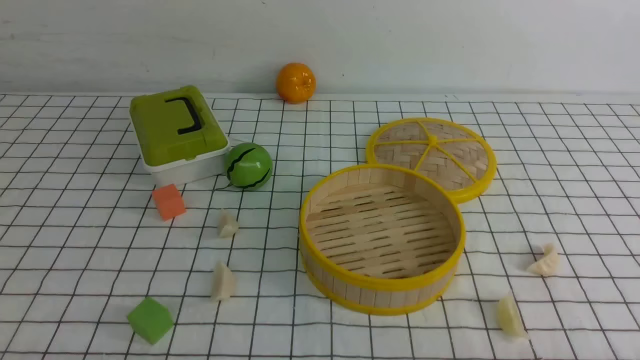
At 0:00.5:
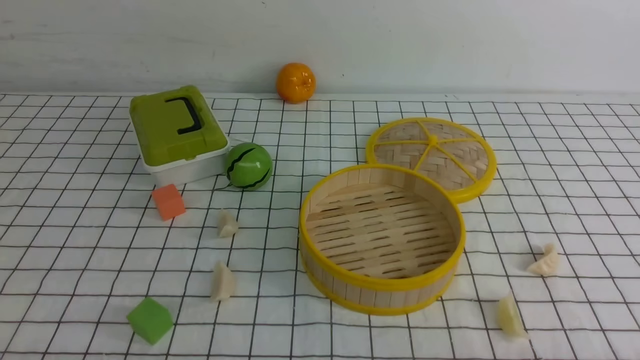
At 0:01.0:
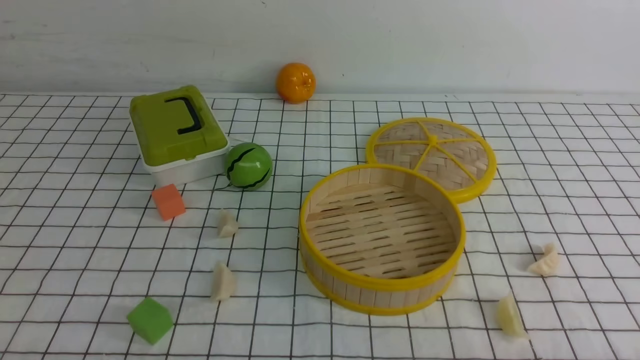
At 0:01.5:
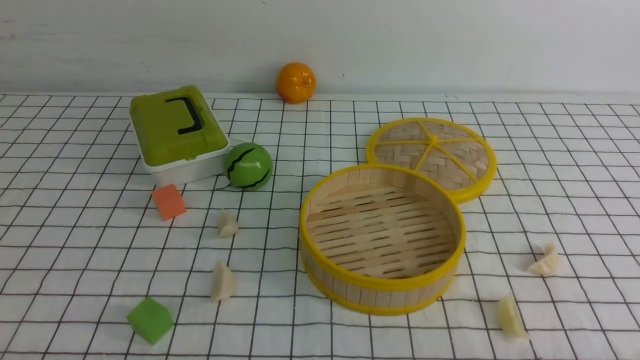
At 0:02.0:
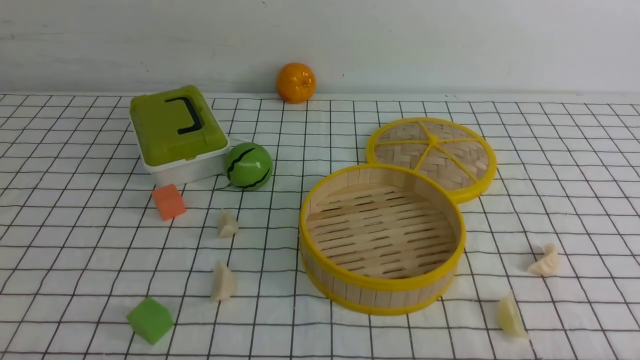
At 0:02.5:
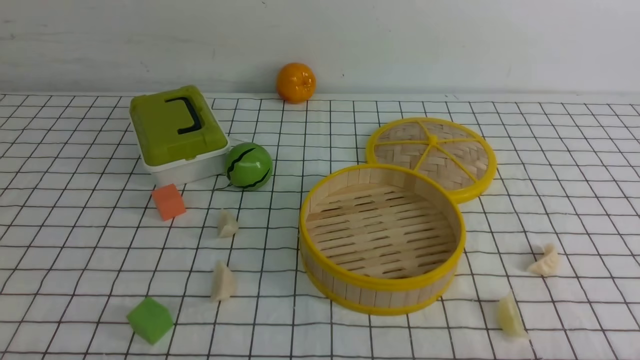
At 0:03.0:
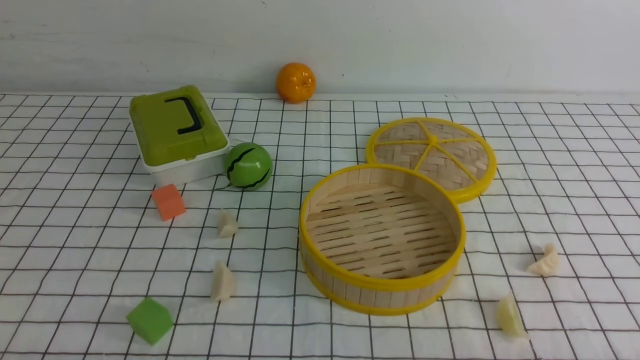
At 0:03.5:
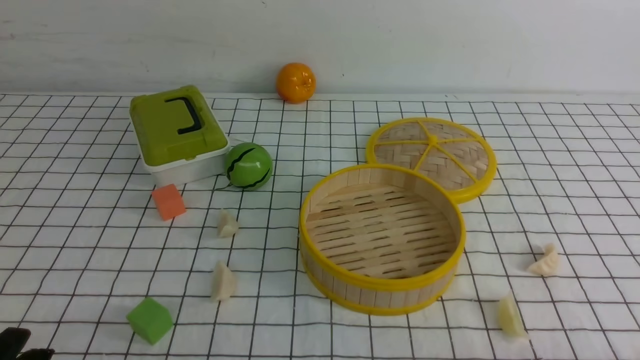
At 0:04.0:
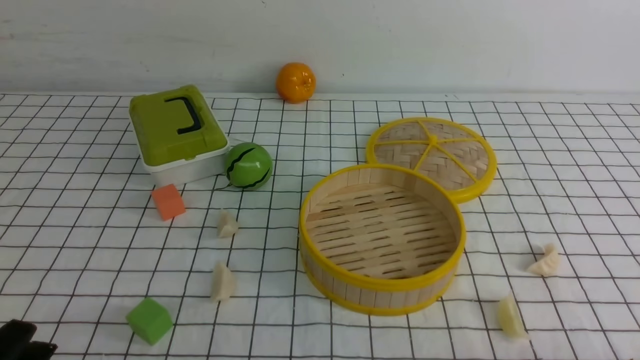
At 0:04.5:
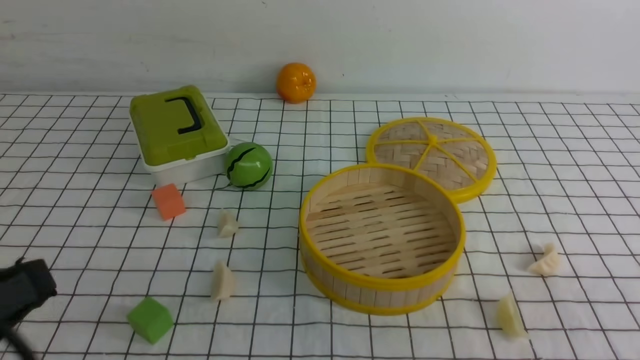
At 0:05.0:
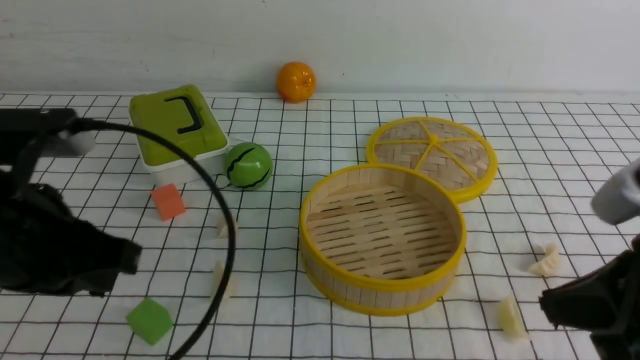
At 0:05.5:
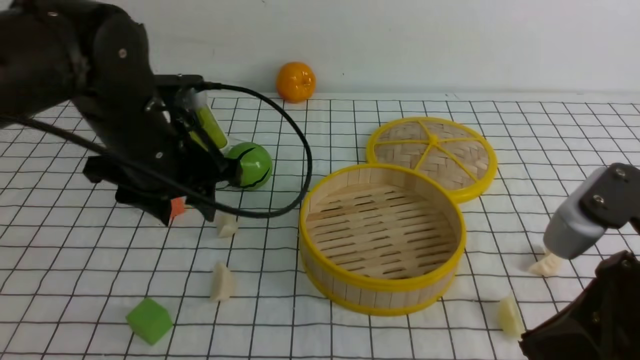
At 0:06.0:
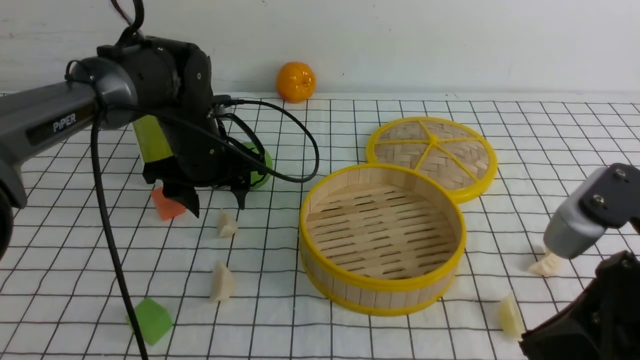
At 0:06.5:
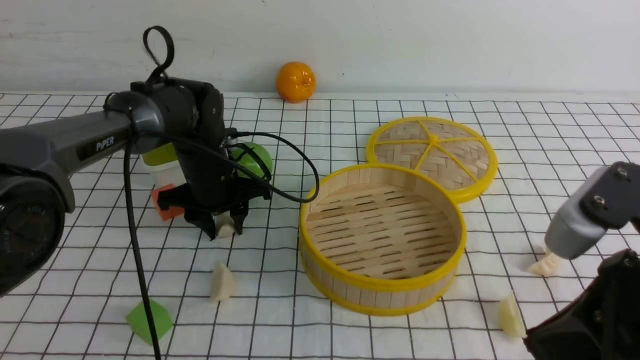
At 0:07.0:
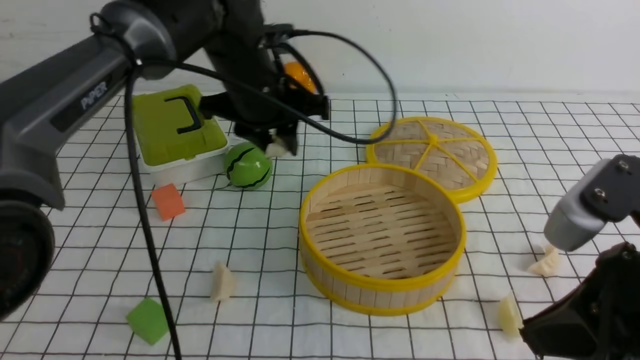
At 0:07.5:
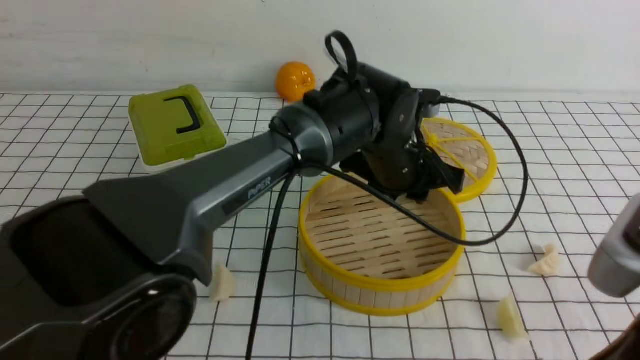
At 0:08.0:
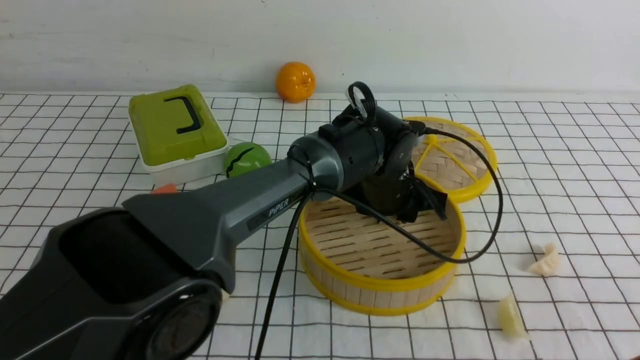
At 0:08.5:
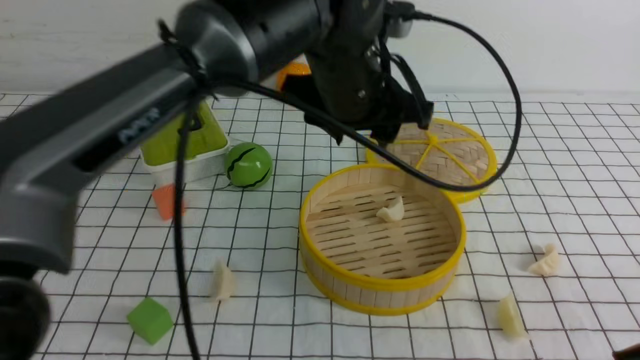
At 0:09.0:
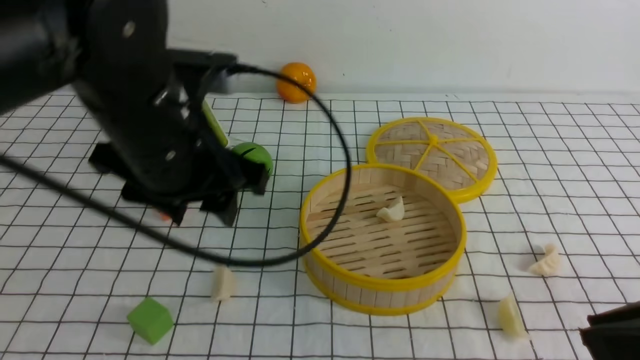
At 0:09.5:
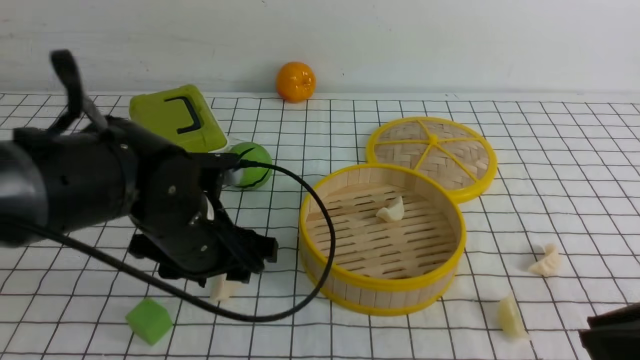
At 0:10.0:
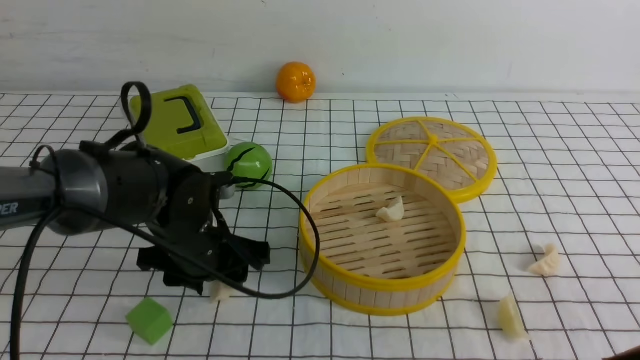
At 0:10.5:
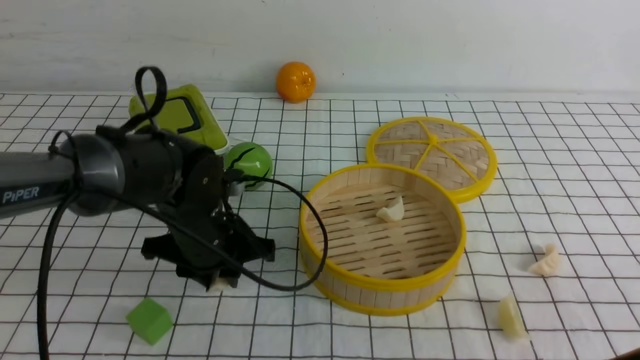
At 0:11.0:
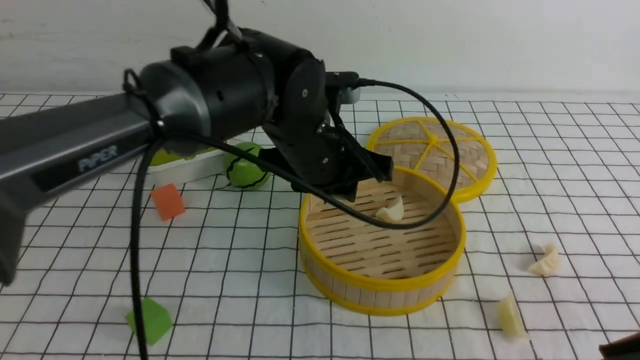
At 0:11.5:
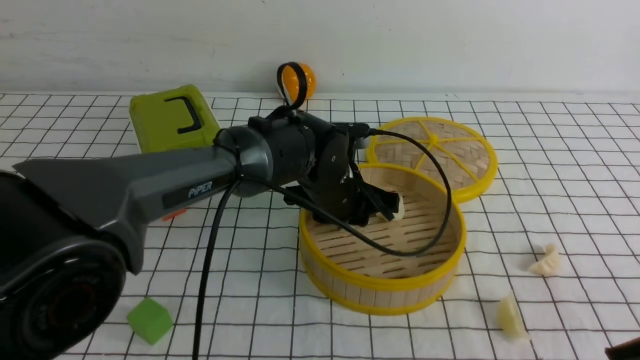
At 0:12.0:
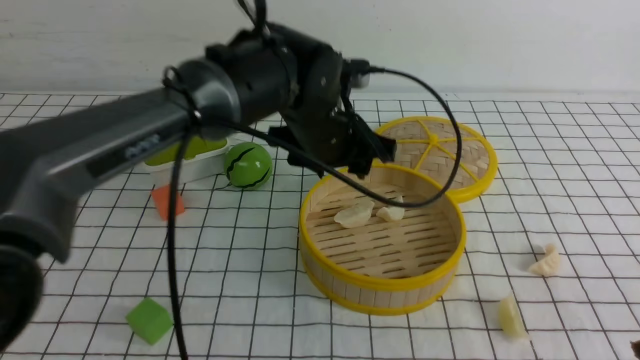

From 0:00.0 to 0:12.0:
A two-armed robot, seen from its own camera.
Task of the whole recording: put the dumplings into the steamer on the table with the white tablecloth.
Step, from 0:00.0 to 0:07.0: use the left arm to grab a dumpling.
Step, from 0:07.5 to 0:08.5: use the left arm to put the dumpling into the steamer.
Step, from 0:09.0 to 0:10.5: use the left arm to grab a dumpling.
From 0:02.0 to 0:04.0: The left gripper shifts some 5 cm upward.
From 0:04.0 to 0:06.0: The right gripper shifts approximately 20 cm upward, forward and to the left, and closes up. Meanwhile the left gripper travels forward by some 40 cm, and opens.
From 0:06.0 to 0:08.0: The left gripper moves to the right, roughly 20 cm, while the right gripper is displaced backward by roughly 5 cm.
From 0:08.0 to 0:10.0: The left gripper travels to the left by roughly 20 cm.
From 0:10.0 to 0:12.0: The left gripper travels upward and to the right by roughly 15 cm, and closes, then opens again.

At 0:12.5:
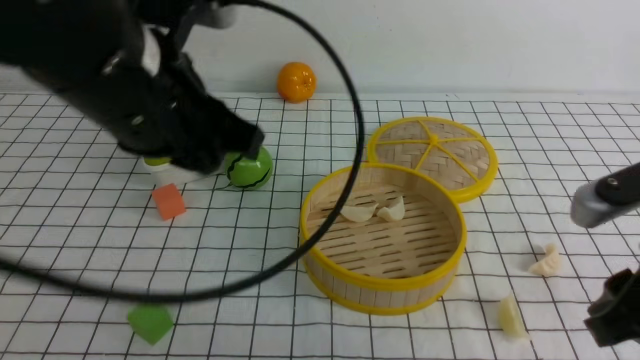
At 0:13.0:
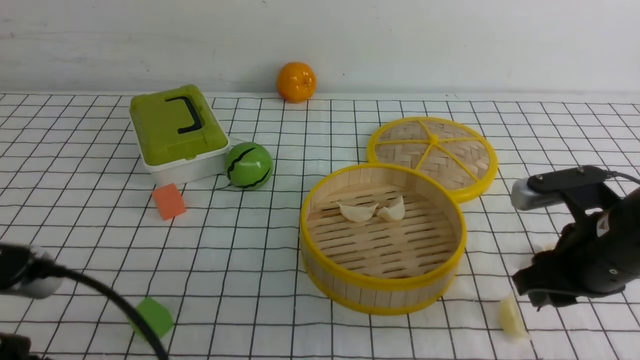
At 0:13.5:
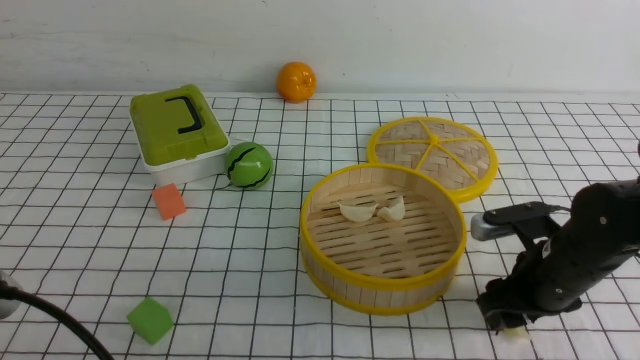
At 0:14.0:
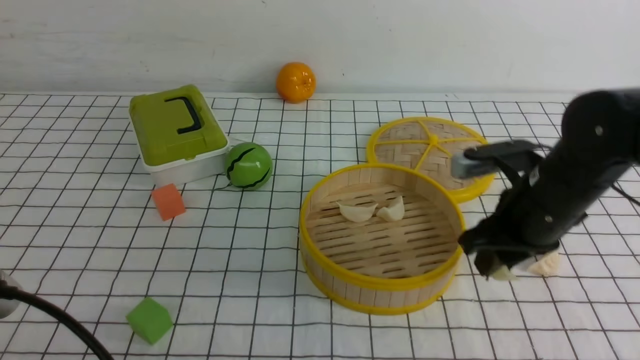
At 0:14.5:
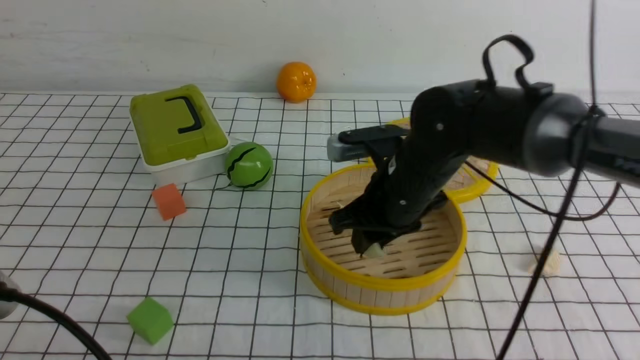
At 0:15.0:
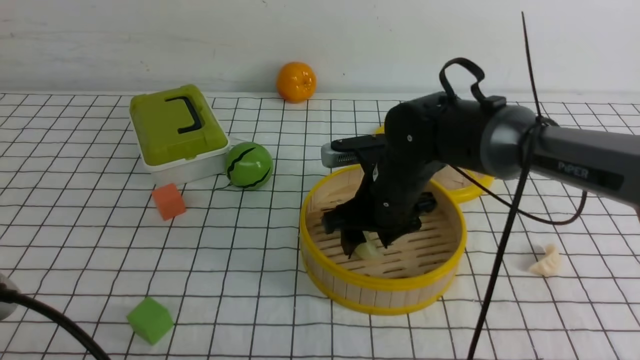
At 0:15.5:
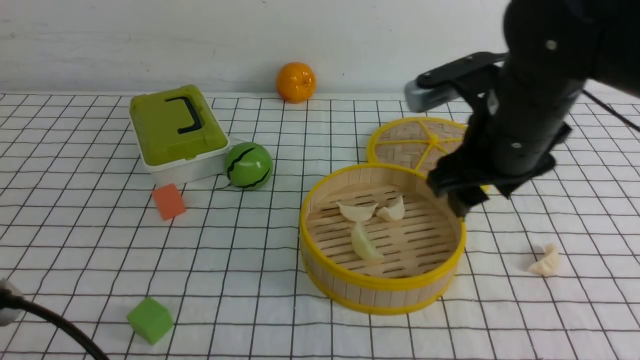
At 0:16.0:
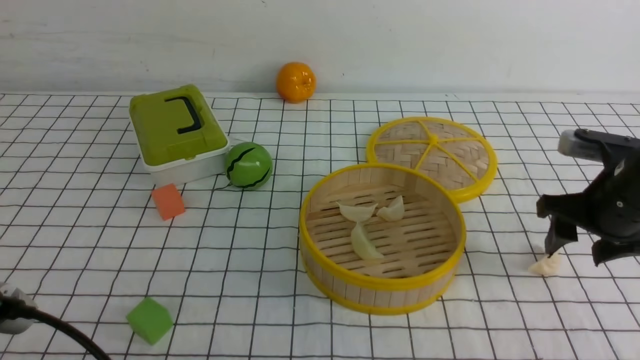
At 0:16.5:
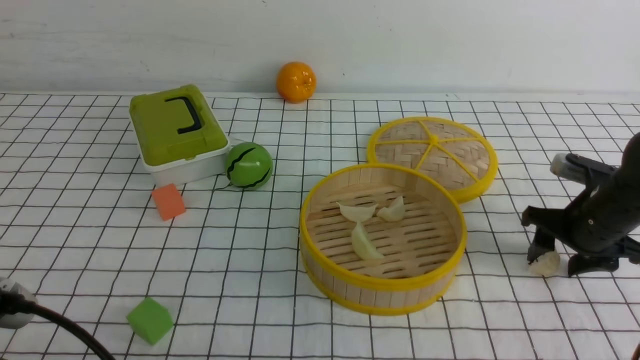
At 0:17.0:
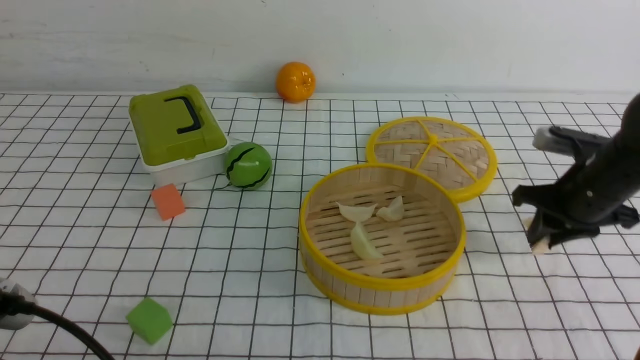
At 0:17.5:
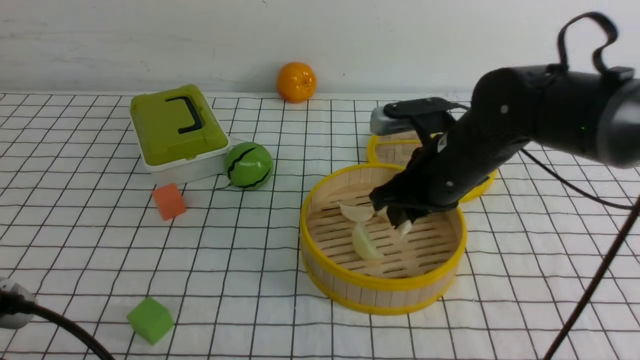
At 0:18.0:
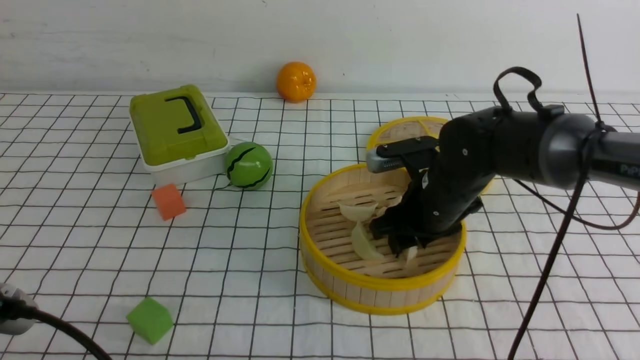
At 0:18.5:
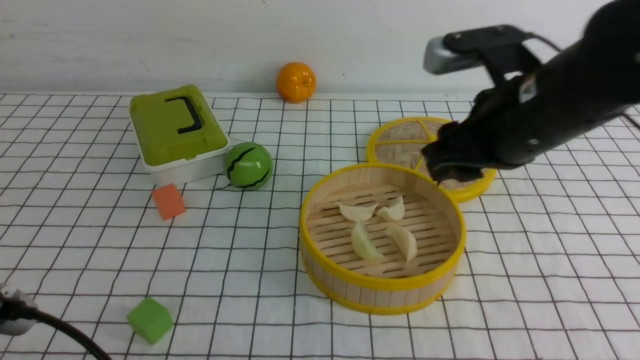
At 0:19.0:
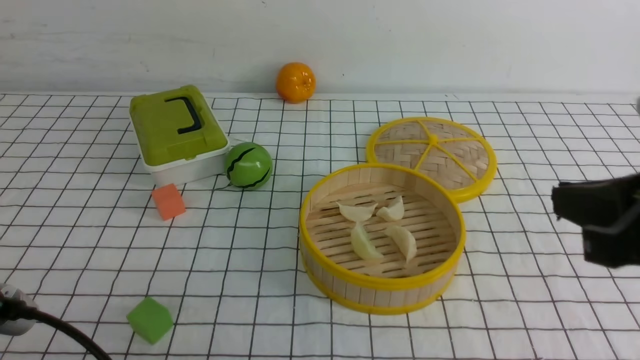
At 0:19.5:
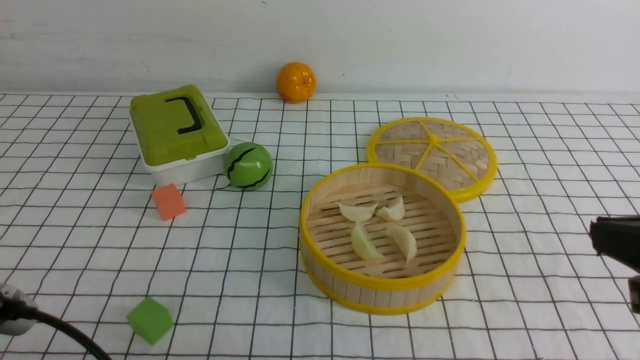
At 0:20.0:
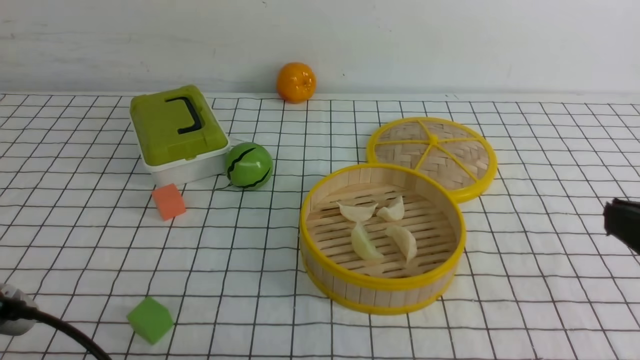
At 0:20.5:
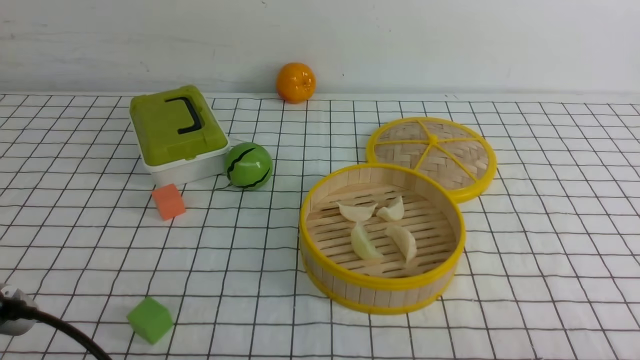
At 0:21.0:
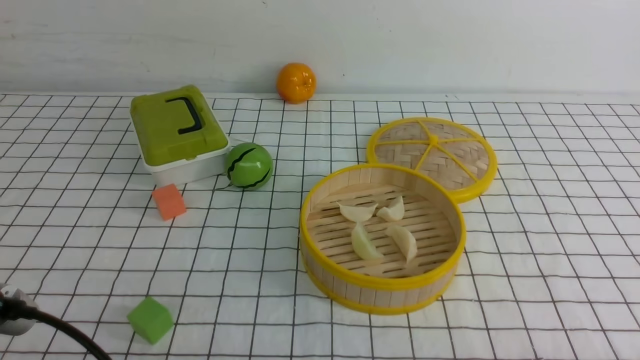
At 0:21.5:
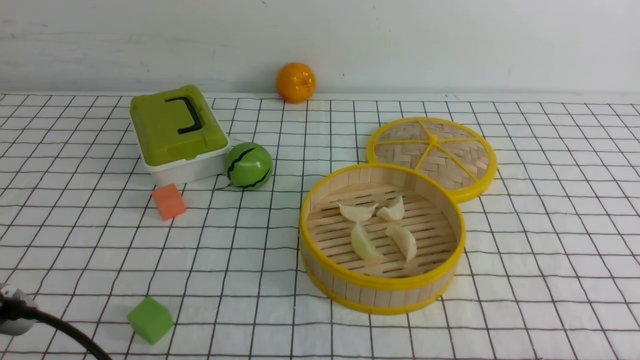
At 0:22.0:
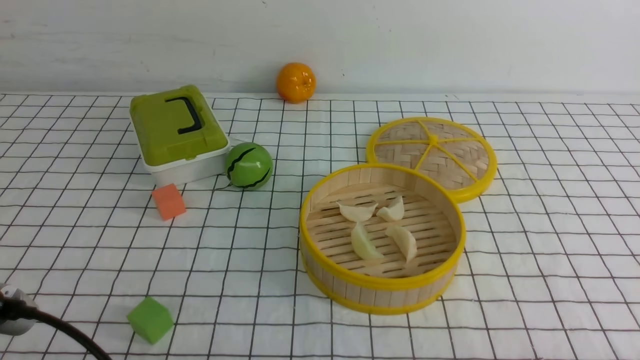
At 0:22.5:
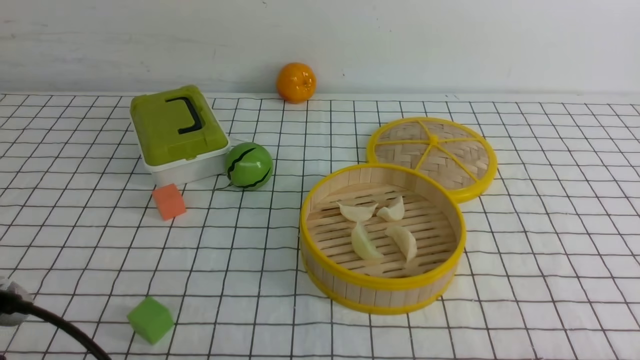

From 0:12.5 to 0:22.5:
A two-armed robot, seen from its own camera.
Task of the whole recording: put the dumplings into the steamer on the table with the white tablecloth.
Step, from 0:12.5 to 0:14.0: use the right arm to grab a dumpling.
Step, from 0:14.5 to 0:15.0: use the right arm to put the dumpling into the steamer.
Step, from 0:15.5 to 0:17.0: use the right arm to grab a dumpling.
Step, from 0:17.5 to 0:18.0: use the right arm to put the dumpling into the steamer.
From 0:12.5 to 0:14.5: The right gripper travels forward, to the left and downward by approximately 25 cm; the left gripper shifts about 20 cm backward, downward and to the left.
From 0:14.5 to 0:16.5: The right gripper is displaced to the right by about 25 cm.
From 0:16.5 to 0:18.5: The right gripper goes approximately 25 cm upward, to the left and backward.
From 0:18.5 to 0:20.5: The right gripper travels backward, to the right and downward by some 30 cm, and closes.
